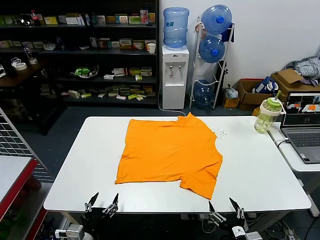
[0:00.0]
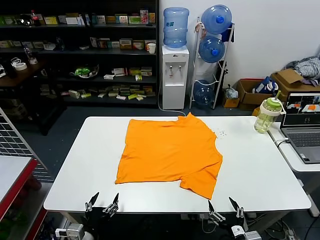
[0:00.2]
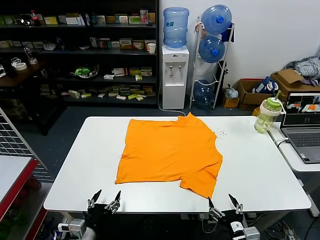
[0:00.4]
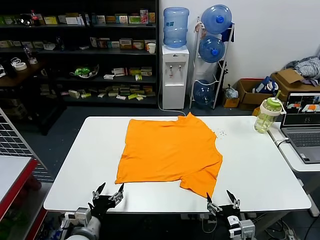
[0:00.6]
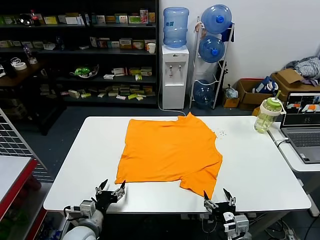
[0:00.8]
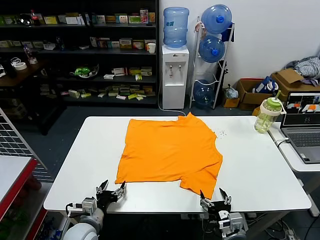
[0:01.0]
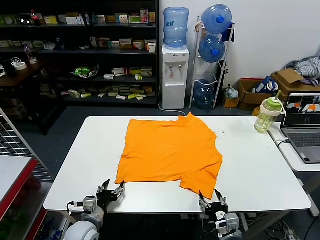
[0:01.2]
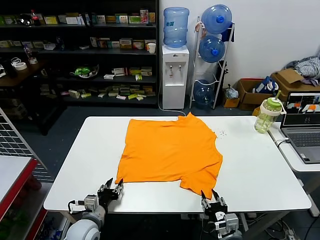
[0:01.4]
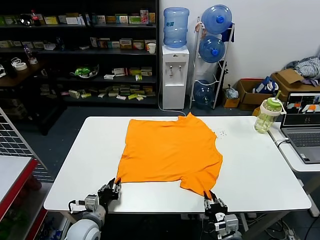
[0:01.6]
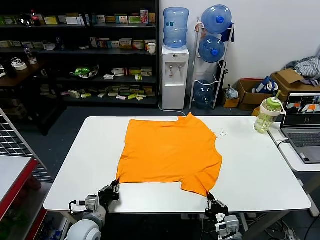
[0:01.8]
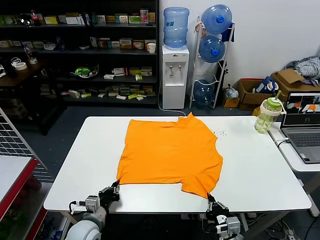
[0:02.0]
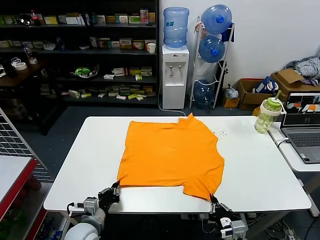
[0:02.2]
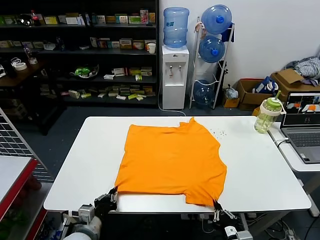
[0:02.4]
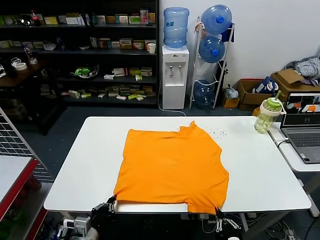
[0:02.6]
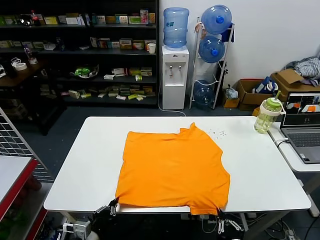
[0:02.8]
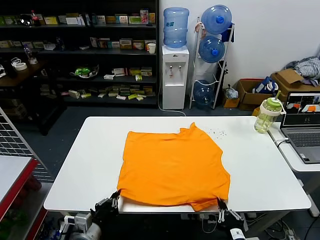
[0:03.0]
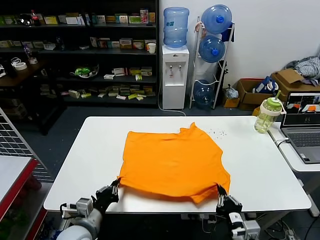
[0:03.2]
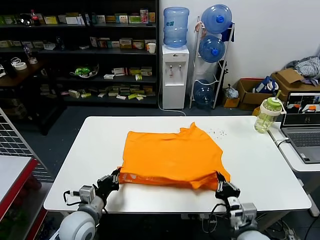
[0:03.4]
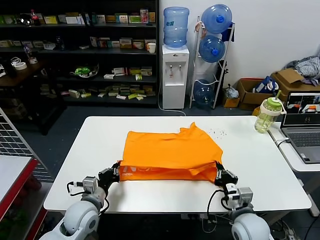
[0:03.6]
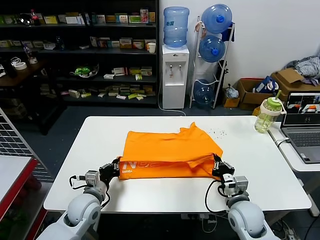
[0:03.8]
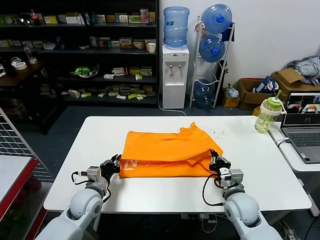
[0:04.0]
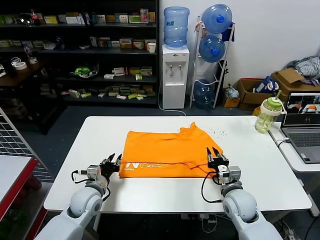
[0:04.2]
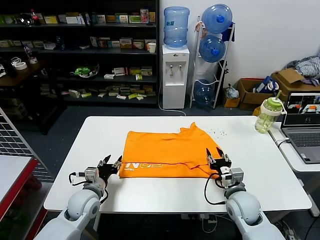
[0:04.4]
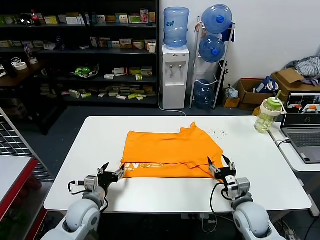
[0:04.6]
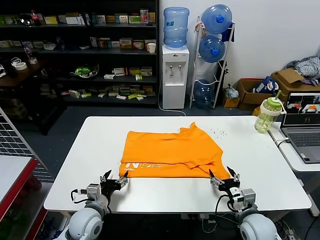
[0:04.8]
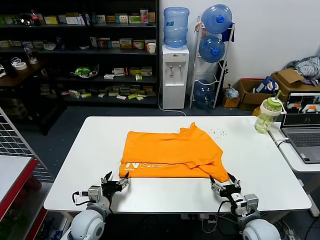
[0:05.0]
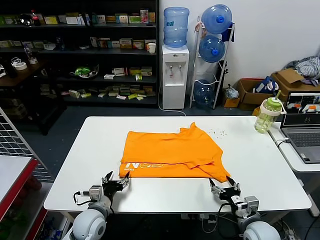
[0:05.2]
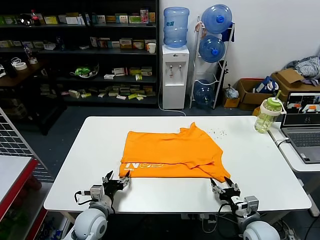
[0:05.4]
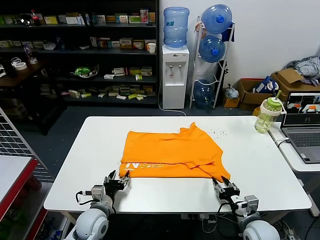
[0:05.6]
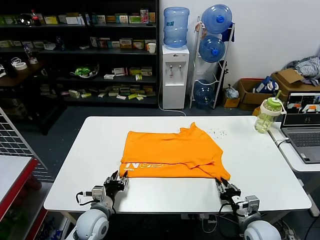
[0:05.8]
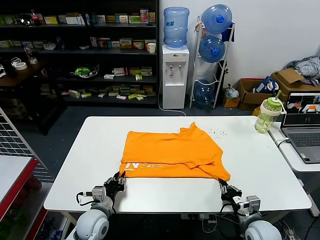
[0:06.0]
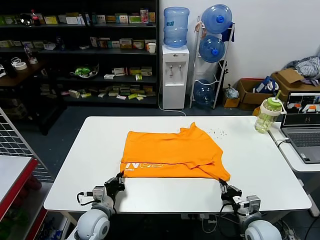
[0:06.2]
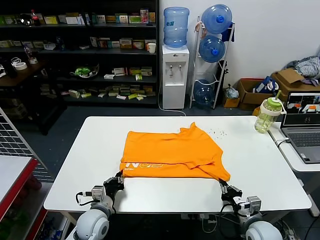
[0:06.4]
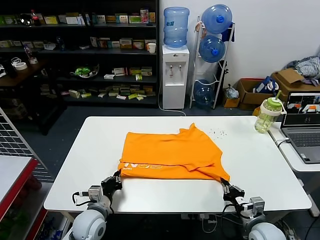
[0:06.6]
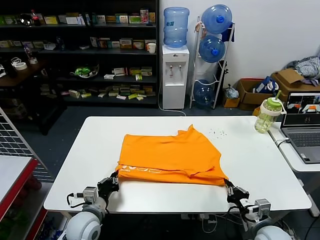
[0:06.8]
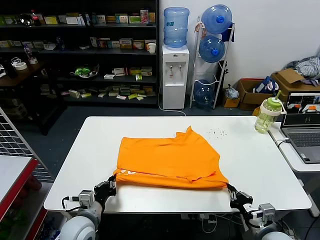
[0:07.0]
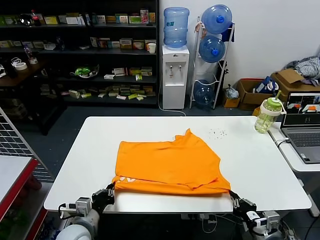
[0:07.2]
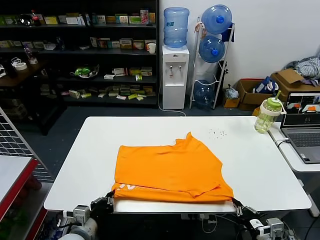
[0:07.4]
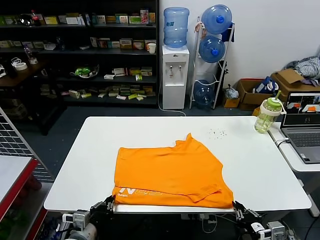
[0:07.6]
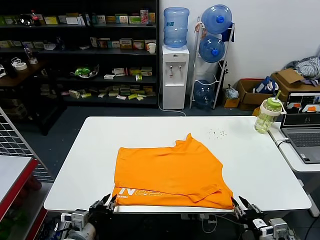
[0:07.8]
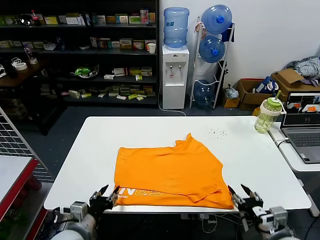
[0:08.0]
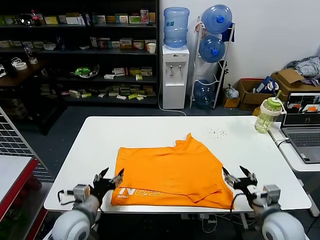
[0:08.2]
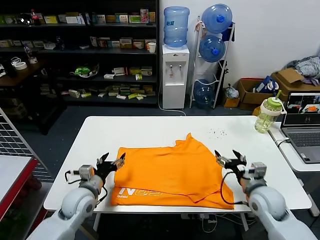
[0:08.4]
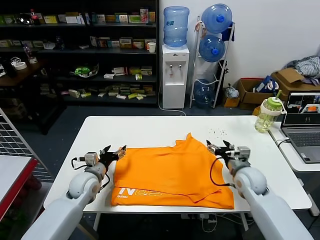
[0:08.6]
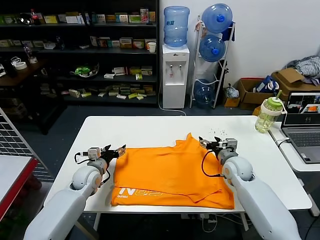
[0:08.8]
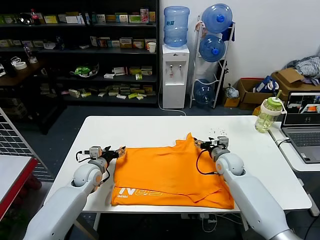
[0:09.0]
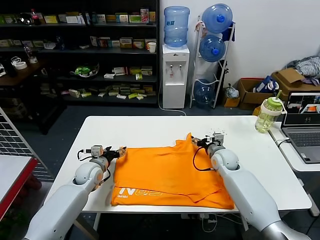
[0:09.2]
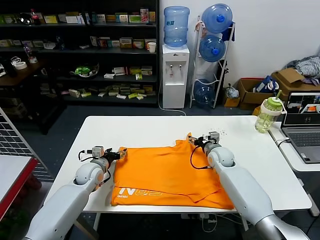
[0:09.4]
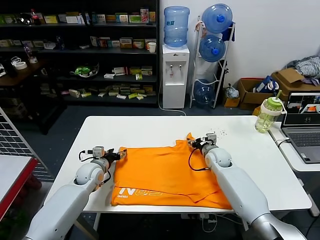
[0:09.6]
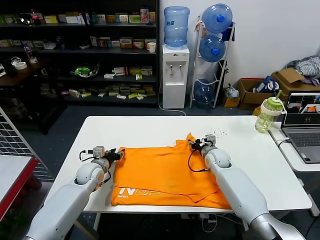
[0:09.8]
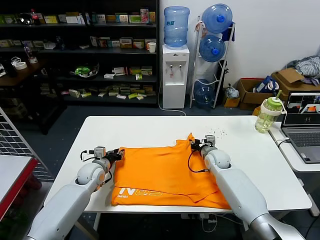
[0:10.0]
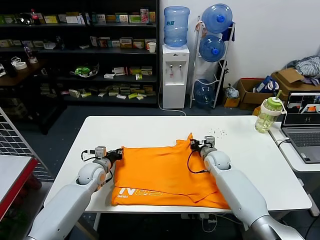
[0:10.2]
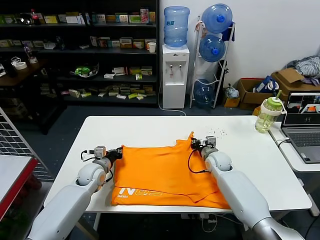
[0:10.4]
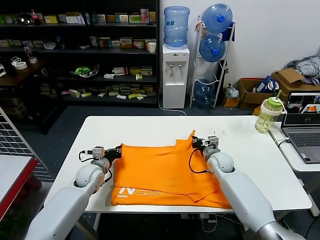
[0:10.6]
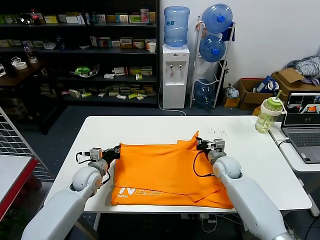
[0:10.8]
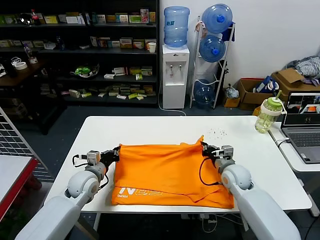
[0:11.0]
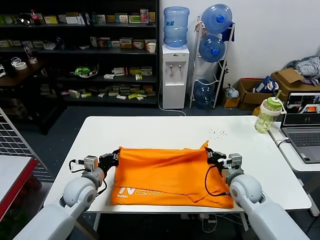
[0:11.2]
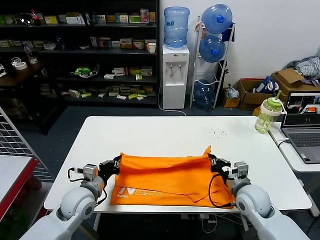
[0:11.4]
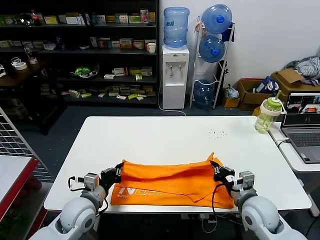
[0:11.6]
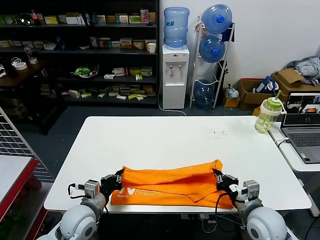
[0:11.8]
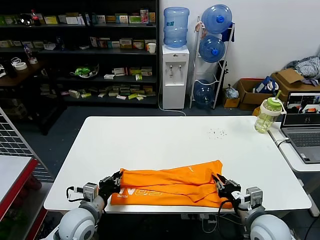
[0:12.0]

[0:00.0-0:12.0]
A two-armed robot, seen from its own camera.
Task of the whole recording: fold and organize the clothes.
Step, 0:00.0 to 0:01.8: use both grippers simultaneously to clamp the lower edge of the clothing fabric.
Step, 0:02.0 to 0:04.0: use both grippers to drag the lower edge of the fabric forward and fold it over the upper edge.
Step, 0:04.2 to 0:07.6: Drag the clothes downward with both gripper.
Step, 0:08.0 to 0:10.2: use both grippers simultaneously to clamp the upper edge of the clothing fabric.
0:01.6 to 0:03.0: The left gripper moves backward and upward, about 10 cm; the right gripper travels upward and backward by about 10 cm.
0:03.0 to 0:04.4: Both grippers move forward, roughly 15 cm. The right gripper opens its fingers. The left gripper opens.
0:04.4 to 0:06.0: The right gripper is displaced backward by approximately 5 cm, and closes up; the left gripper shifts by about 5 cm, and closes.
0:06.0 to 0:07.6: Both grippers move backward and upward, roughly 10 cm.
0:07.6 to 0:09.0: Both grippers travel together forward, roughly 30 cm. The right gripper opens its fingers, while the left gripper opens its fingers.
0:09.0 to 0:10.4: The right gripper closes its fingers. Meanwhile the left gripper closes its fingers.
0:10.4 to 0:12.0: Both grippers move backward, approximately 25 cm.

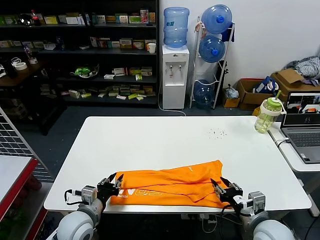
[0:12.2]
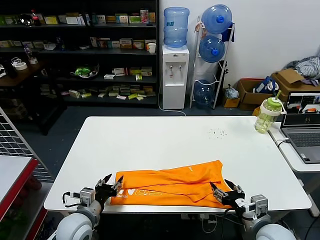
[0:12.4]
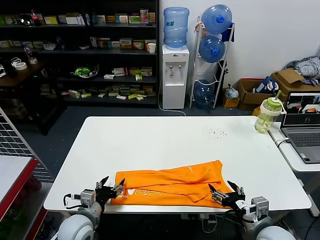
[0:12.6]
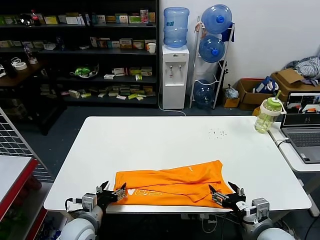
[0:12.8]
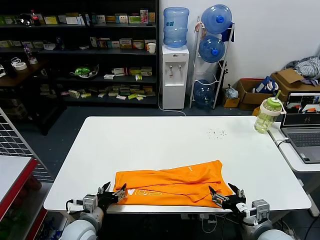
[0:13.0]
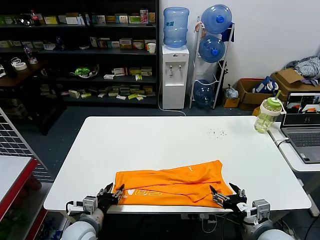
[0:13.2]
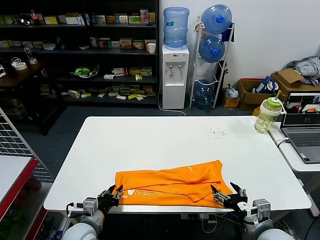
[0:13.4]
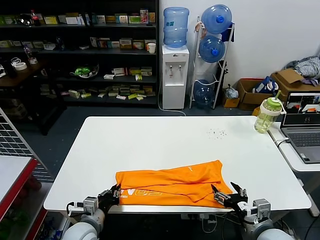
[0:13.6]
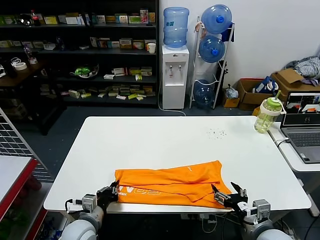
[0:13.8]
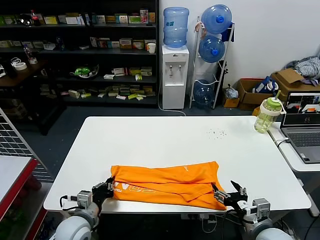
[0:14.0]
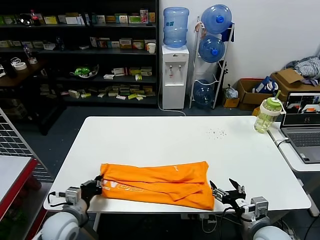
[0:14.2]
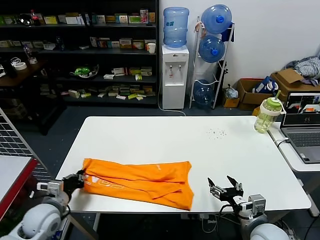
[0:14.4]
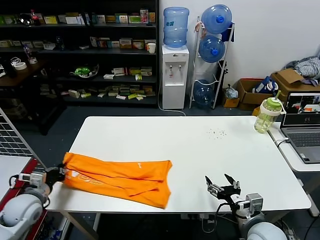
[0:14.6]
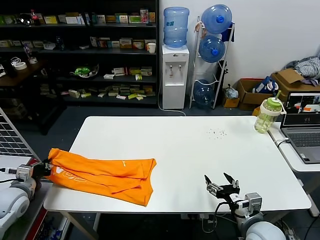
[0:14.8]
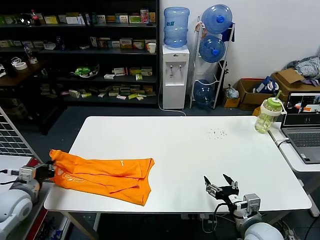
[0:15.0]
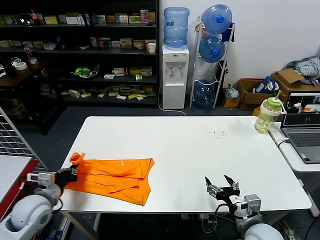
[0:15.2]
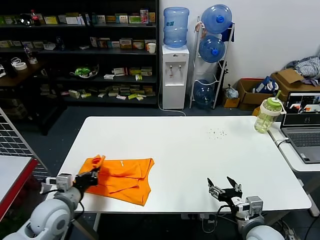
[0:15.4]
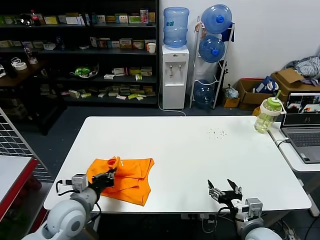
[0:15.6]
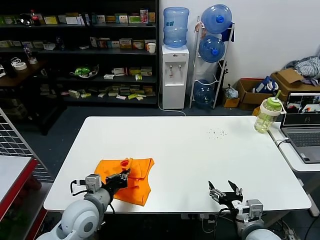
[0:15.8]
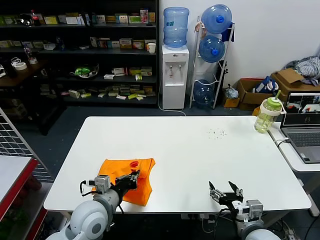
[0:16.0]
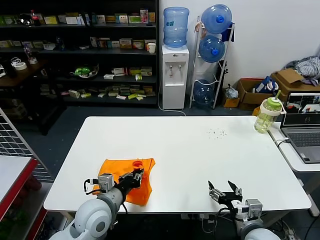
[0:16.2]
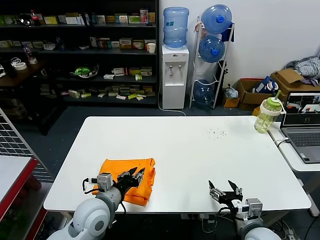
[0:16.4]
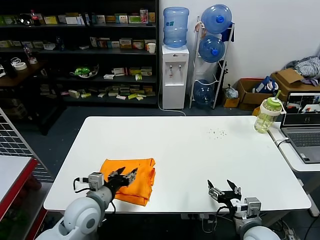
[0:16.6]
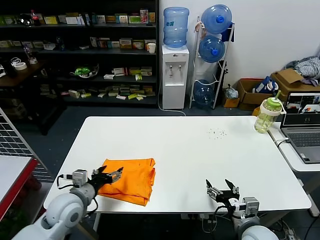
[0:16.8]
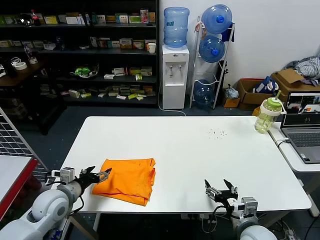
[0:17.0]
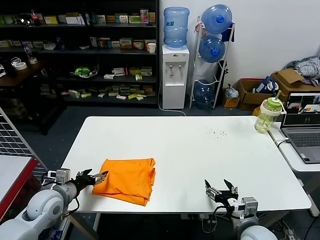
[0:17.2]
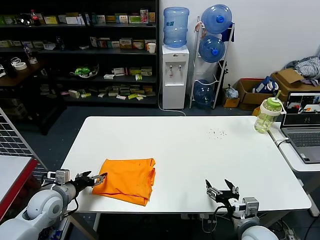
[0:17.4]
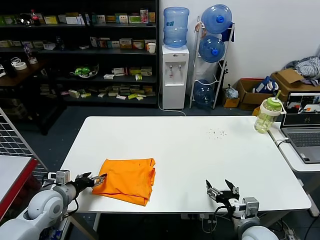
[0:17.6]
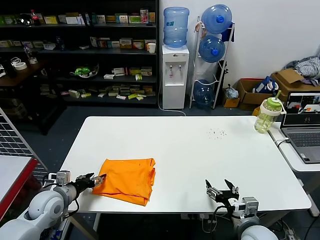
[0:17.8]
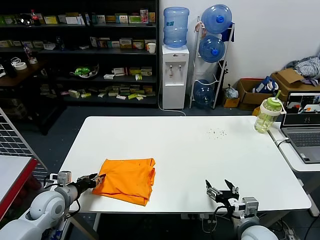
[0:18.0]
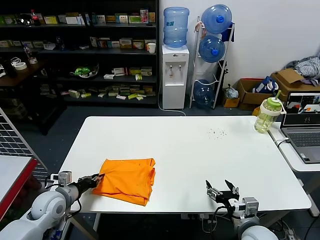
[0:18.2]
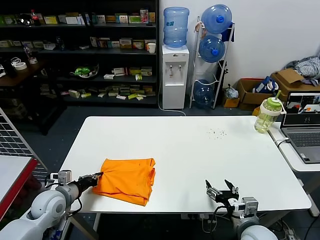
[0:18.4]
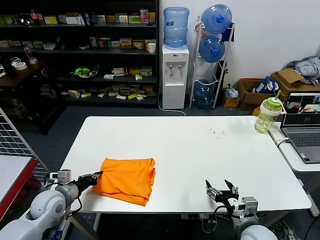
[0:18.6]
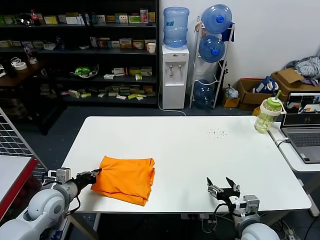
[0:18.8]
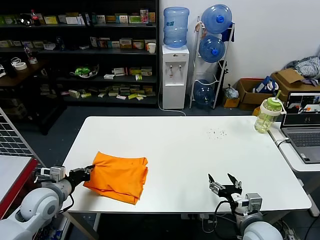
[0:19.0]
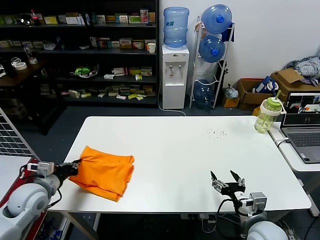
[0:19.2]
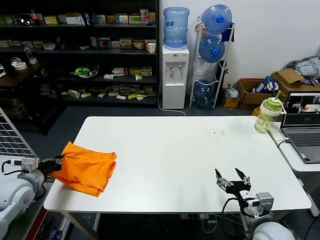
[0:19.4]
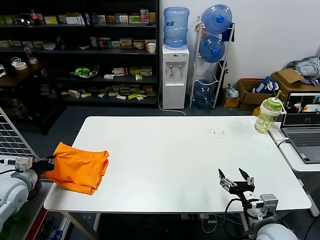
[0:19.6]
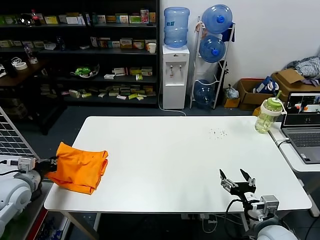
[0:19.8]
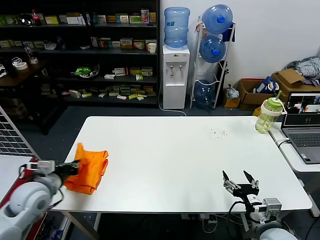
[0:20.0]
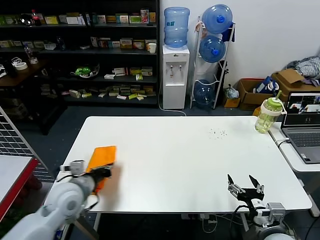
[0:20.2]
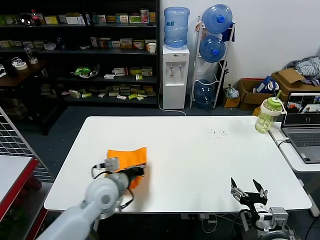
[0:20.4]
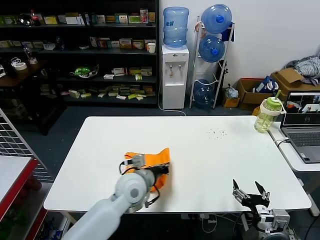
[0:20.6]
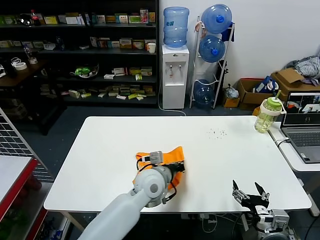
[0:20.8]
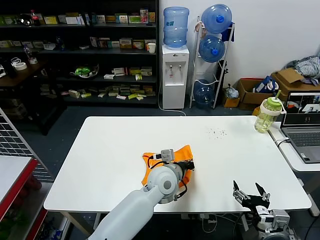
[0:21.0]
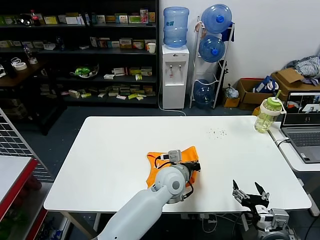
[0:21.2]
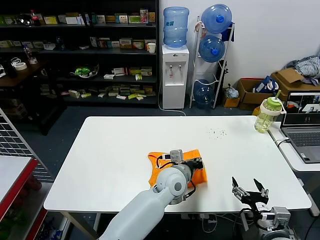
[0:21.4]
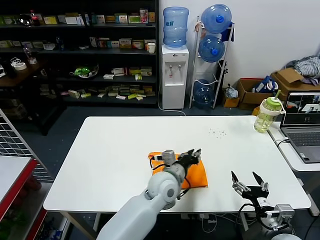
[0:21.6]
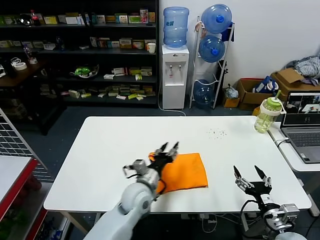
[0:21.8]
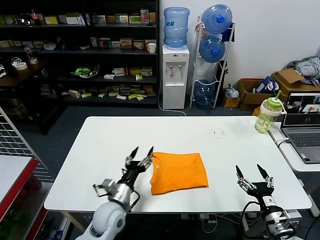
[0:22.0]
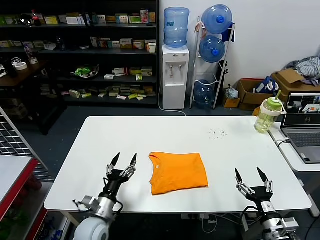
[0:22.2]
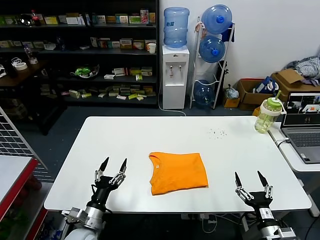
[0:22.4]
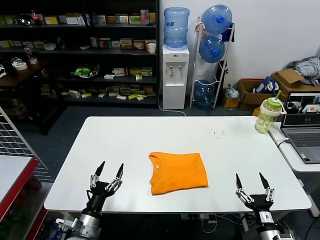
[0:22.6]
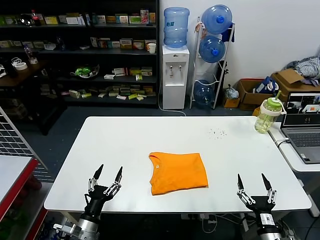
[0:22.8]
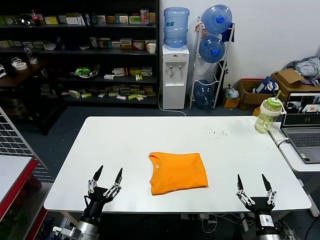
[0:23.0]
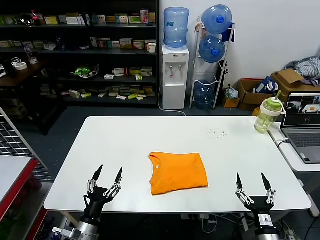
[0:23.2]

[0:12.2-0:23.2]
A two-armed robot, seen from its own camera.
Task of the whole recording: fold and organize the clothes.
Step, 0:12.2 to 0:13.6: use the left gripper to clamp the left edge of the fabric.
Step, 0:13.8 to 0:16.4: use the left gripper to drag the left edge of the fabric to the left and folds it over the right edge.
Step, 0:16.6 to 0:21.4: Flip the folded clothes over with left gripper.
0:12.2 to 0:13.8: The left gripper closes up, while the right gripper opens.
0:13.8 to 0:15.4: The left gripper moves upward and to the left, approximately 10 cm.
0:15.4 to 0:17.0: The left gripper reaches approximately 15 cm to the right, then returns, and opens.
0:17.0 to 0:18.4: The left gripper shifts by about 5 cm, and closes up.
0:18.4 to 0:20.0: The left gripper moves upward, roughly 10 cm, and moves some 10 cm to the left and comes back.
0:20.0 to 0:21.6: The left gripper heads to the right, covering approximately 40 cm.
0:21.6 to 0:23.2: The left gripper moves to the left and backward, roughly 35 cm, and opens. Meanwhile the right gripper shifts about 10 cm downward.
